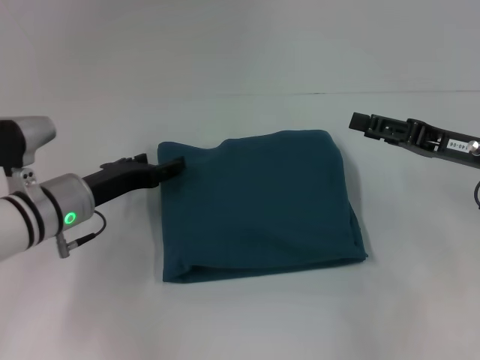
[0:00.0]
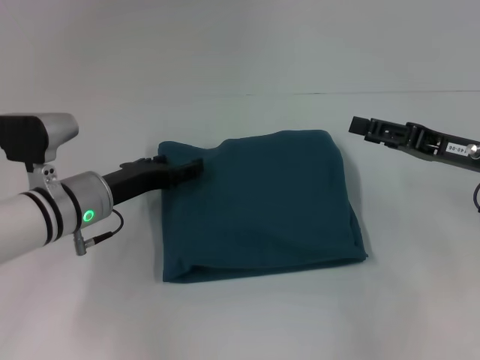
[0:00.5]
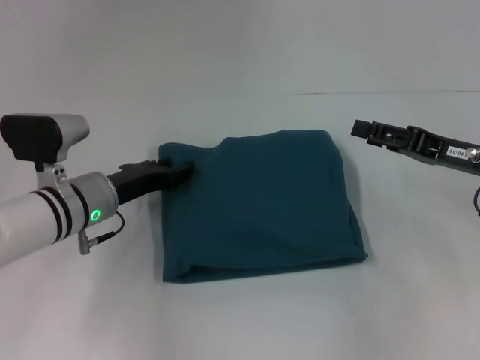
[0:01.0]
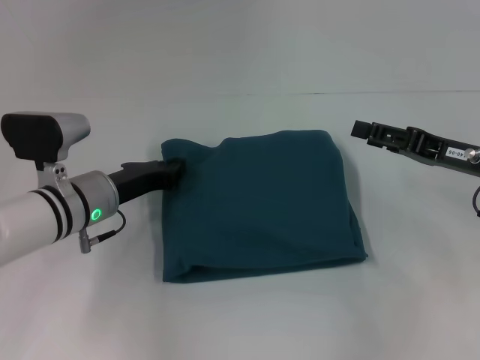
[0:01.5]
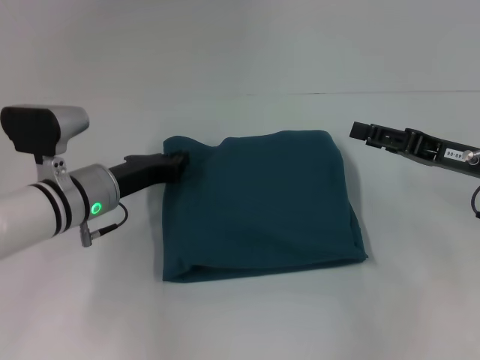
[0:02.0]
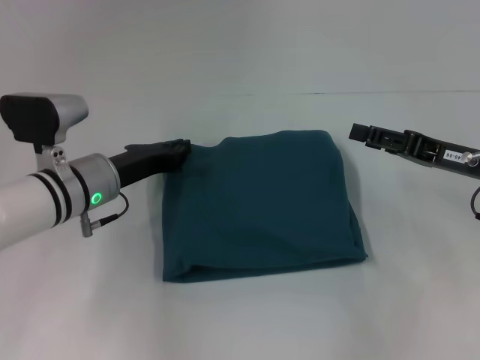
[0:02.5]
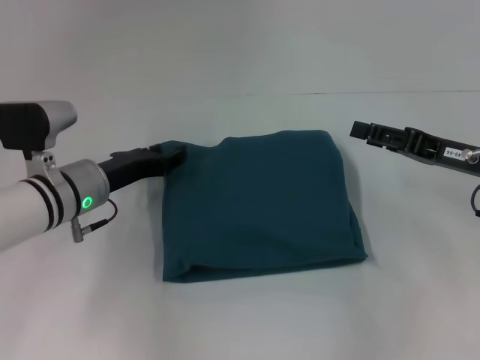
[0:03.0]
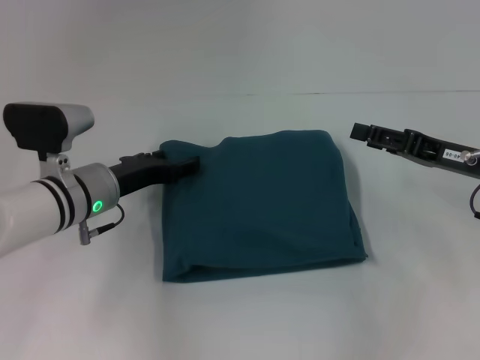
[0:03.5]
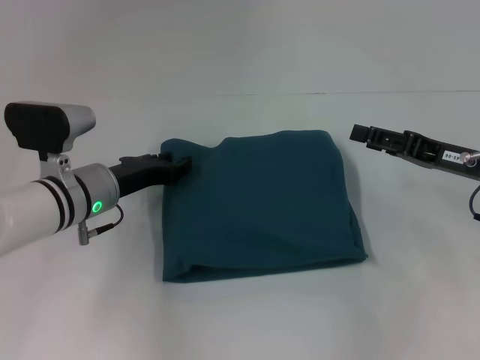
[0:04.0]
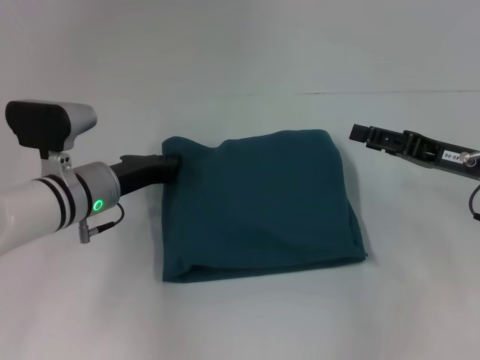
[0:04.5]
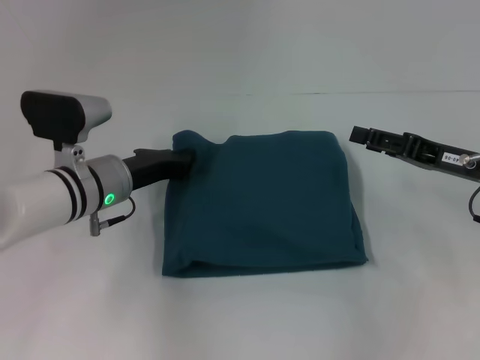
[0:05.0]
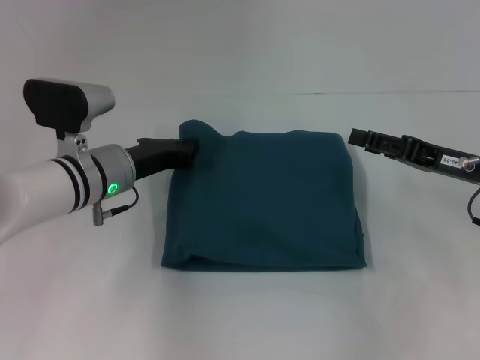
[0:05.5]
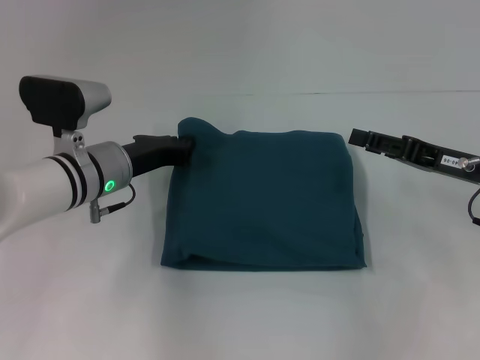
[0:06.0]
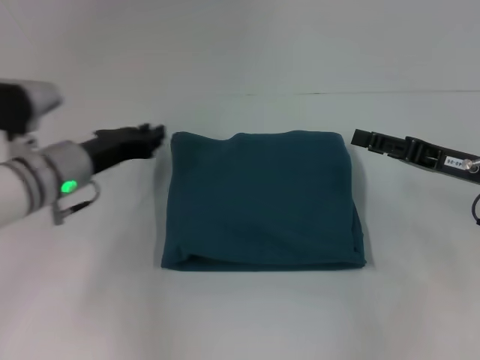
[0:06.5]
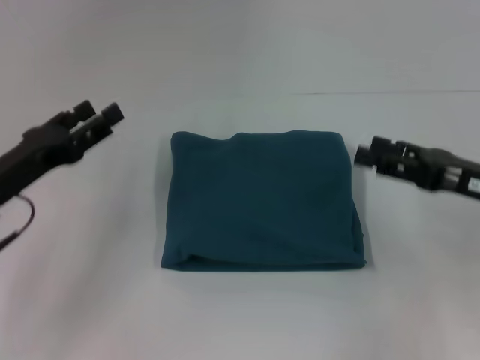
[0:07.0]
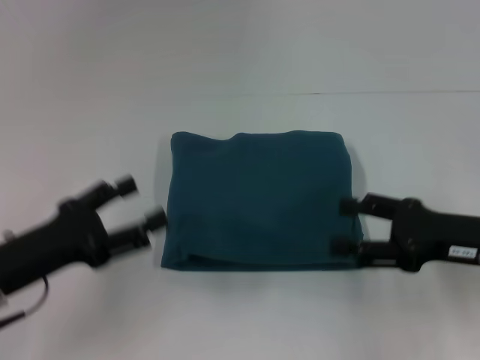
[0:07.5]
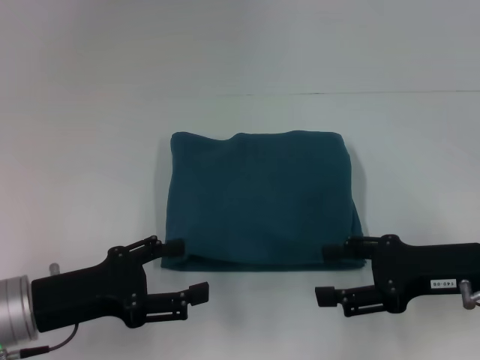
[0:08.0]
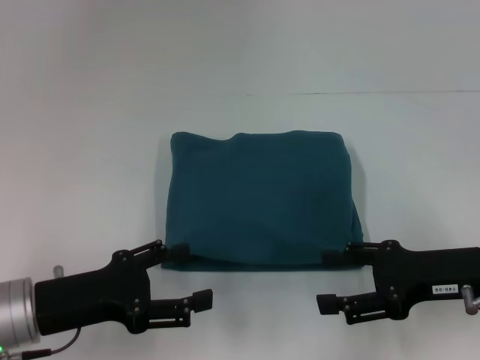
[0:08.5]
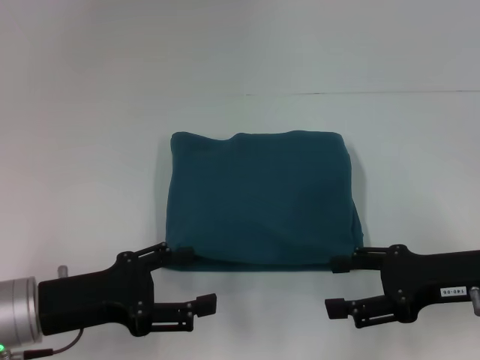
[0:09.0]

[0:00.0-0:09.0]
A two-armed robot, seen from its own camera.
0:00.0 to 0:02.0: The left gripper closes its fingers.
0:02.0 to 0:04.5: The left gripper opens and closes again.
0:04.5 to 0:07.0: The left gripper goes some 10 cm to the left and backward, and opens its fingers.
0:07.0 to 0:09.0: The left gripper shifts roughly 5 cm backward.

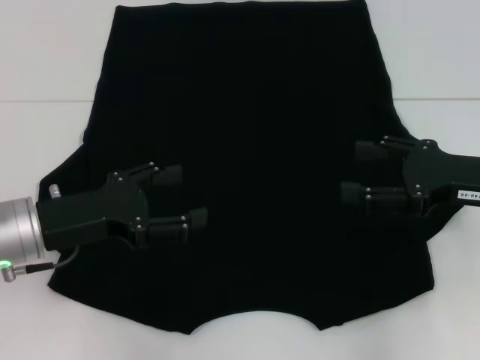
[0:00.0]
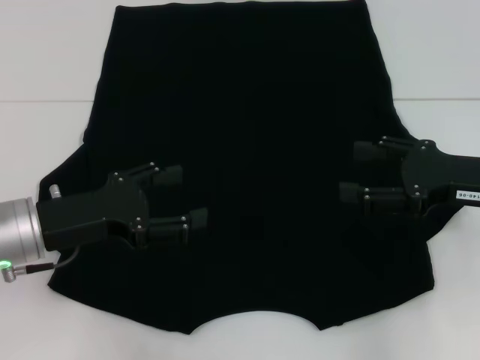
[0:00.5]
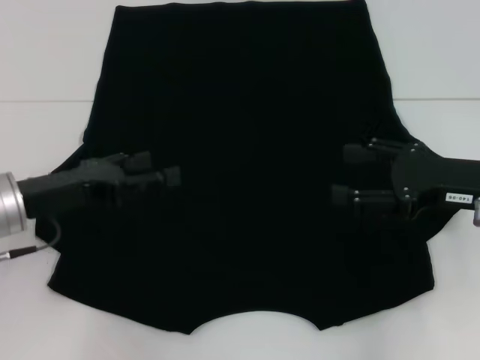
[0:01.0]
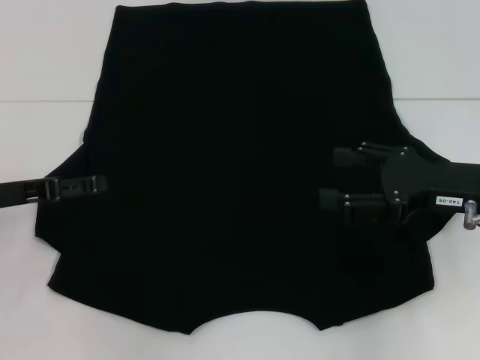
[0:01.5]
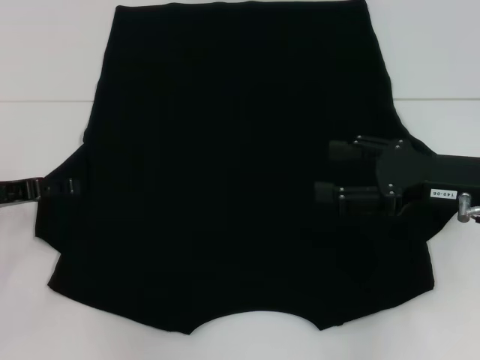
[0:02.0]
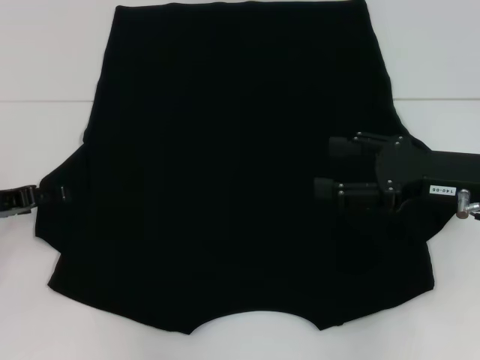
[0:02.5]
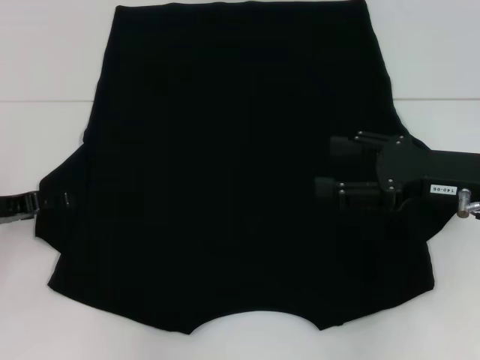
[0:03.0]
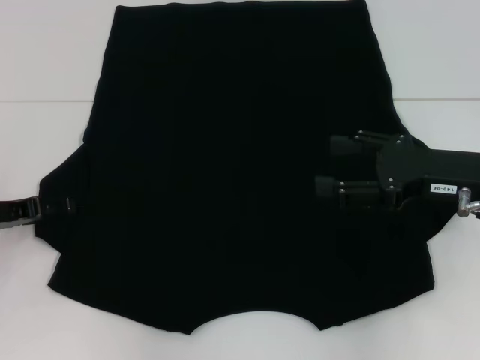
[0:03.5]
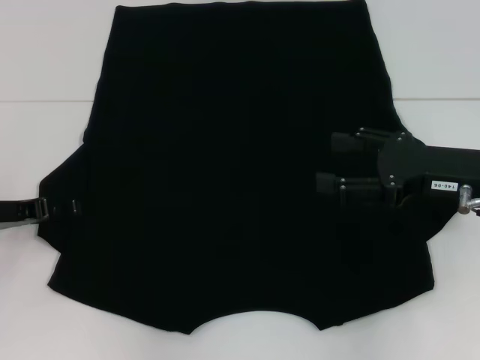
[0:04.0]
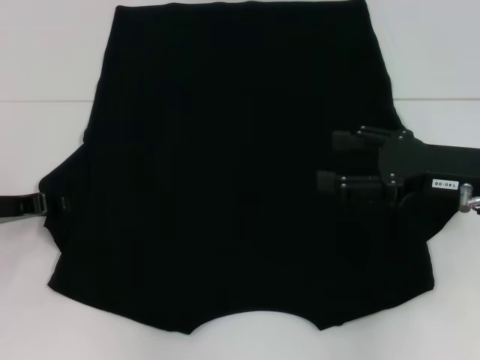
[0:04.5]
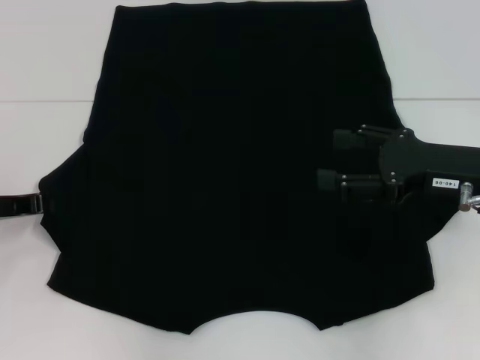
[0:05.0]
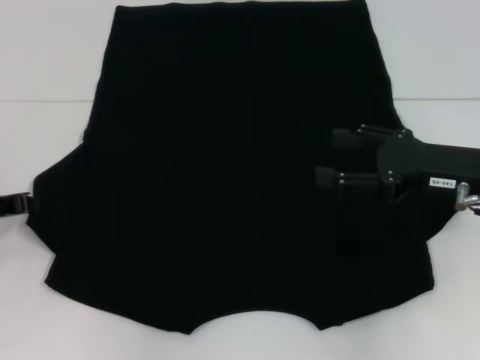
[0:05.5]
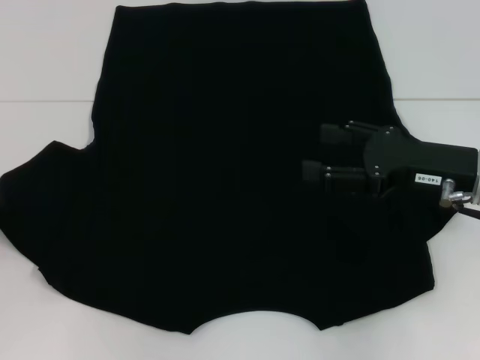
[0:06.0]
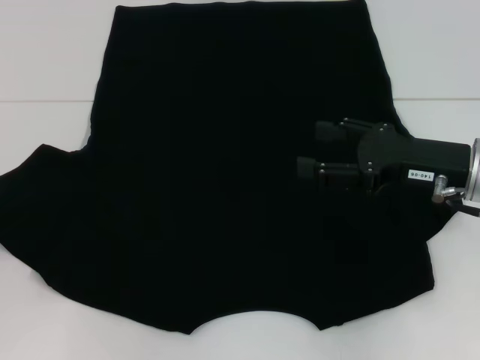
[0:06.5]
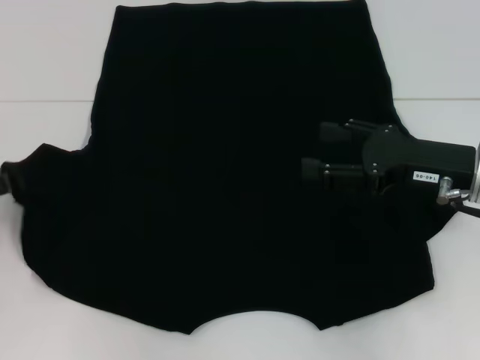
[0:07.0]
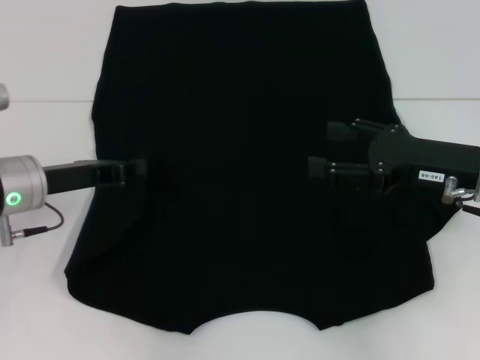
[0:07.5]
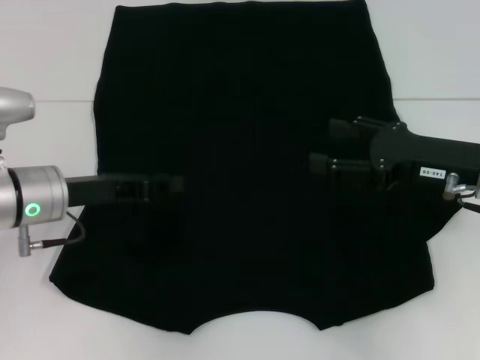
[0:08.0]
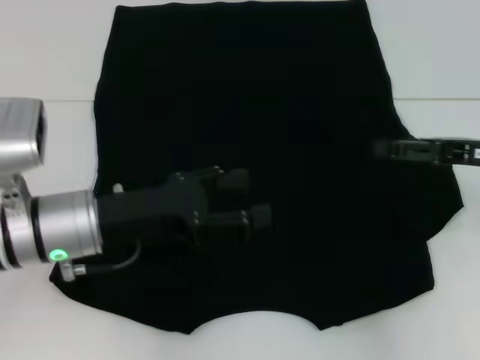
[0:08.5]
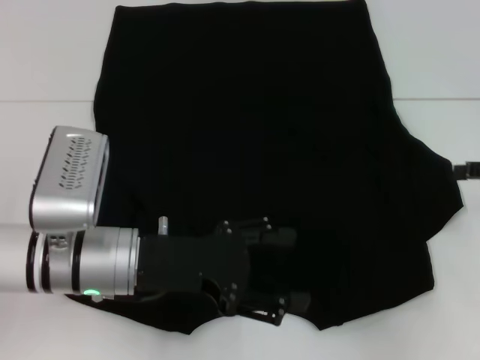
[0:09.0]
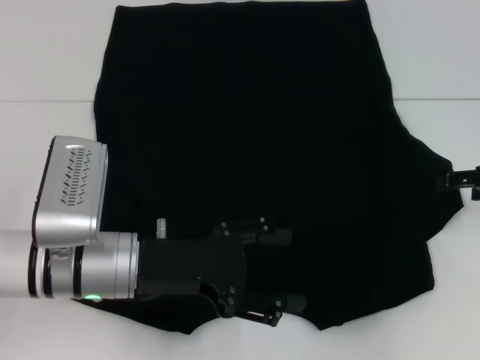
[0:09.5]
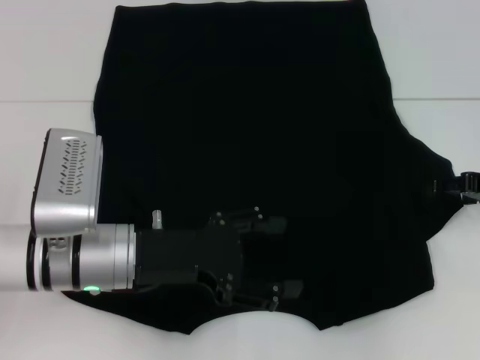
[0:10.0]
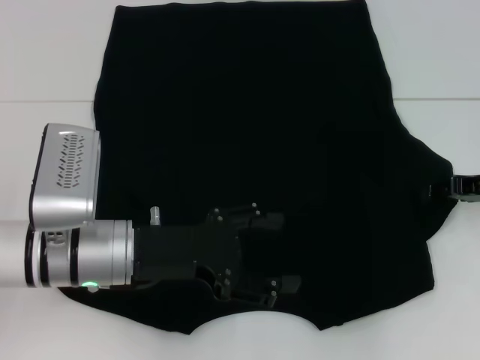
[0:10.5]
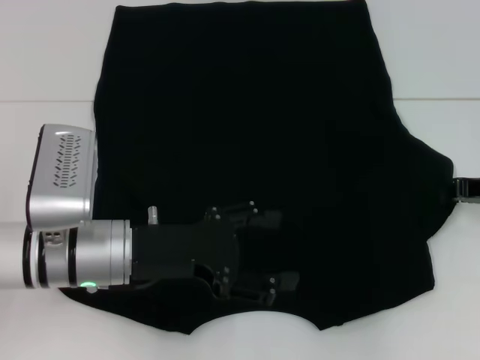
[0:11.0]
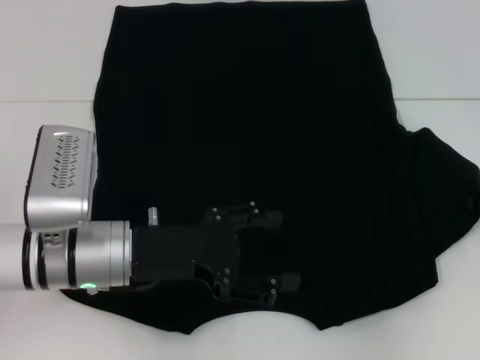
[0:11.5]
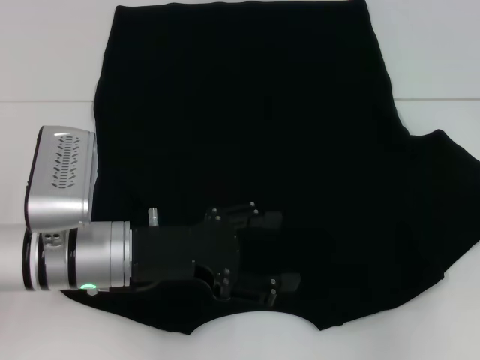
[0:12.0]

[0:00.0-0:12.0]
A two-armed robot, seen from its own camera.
Step, 0:00.0 to 0:08.0: Fold the bottom left sleeve with your left hand.
0:00.0 to 0:02.0: The left gripper heads to the left, covering some 10 cm.
0:02.0 to 0:04.0: The grippers stay close to where they were, moving slightly.
0:04.0 to 0:06.0: The left gripper closes up.
0:06.0 to 0:08.0: The left gripper moves to the right, approximately 15 cm.
0:08.0 to 0:10.0: The left gripper is displaced to the right and backward by roughly 10 cm, and opens its fingers. Meanwhile the right gripper travels to the right by about 10 cm.
0:10.0 to 0:12.0: The right gripper closes its fingers.

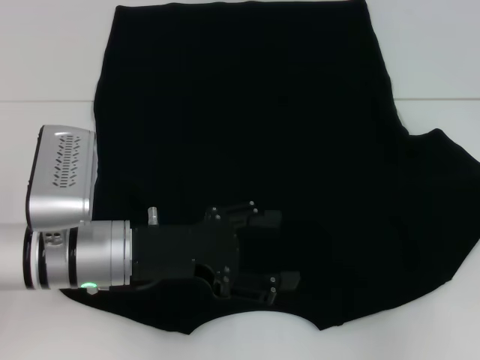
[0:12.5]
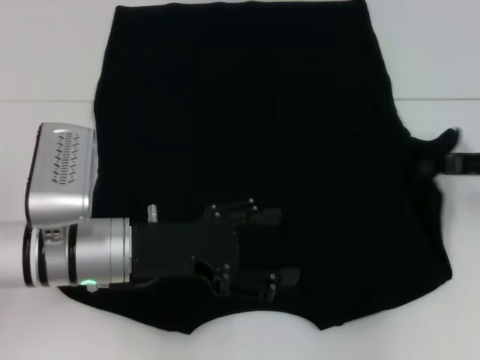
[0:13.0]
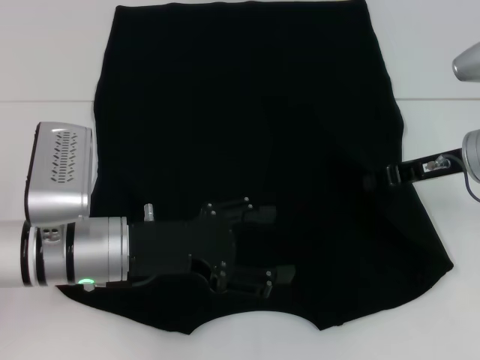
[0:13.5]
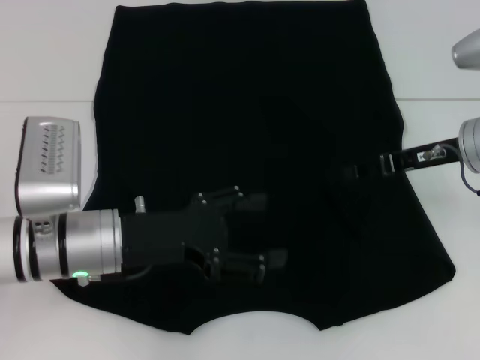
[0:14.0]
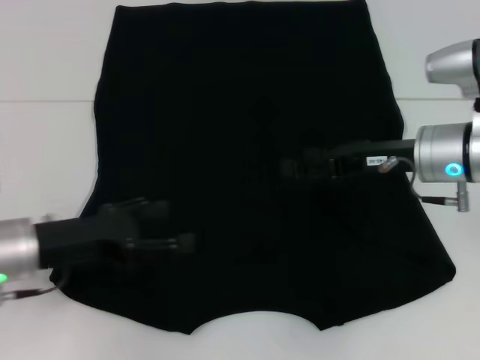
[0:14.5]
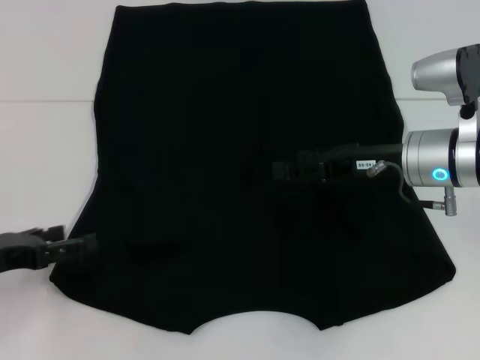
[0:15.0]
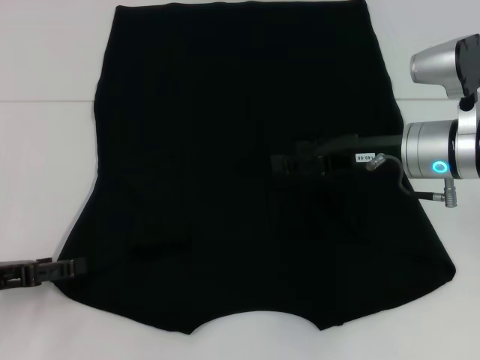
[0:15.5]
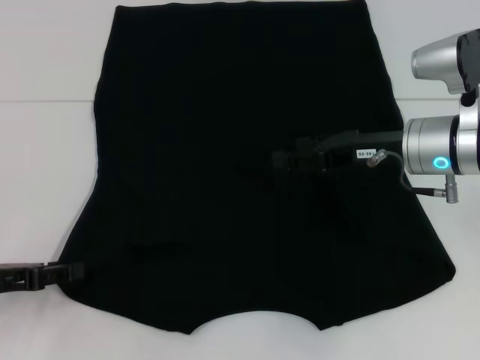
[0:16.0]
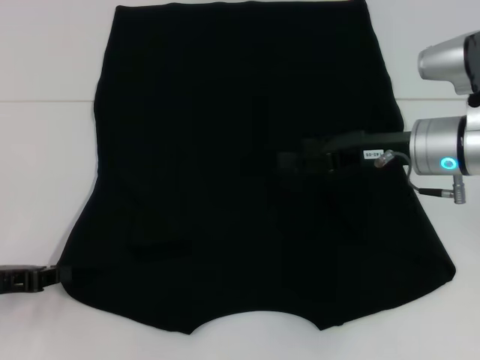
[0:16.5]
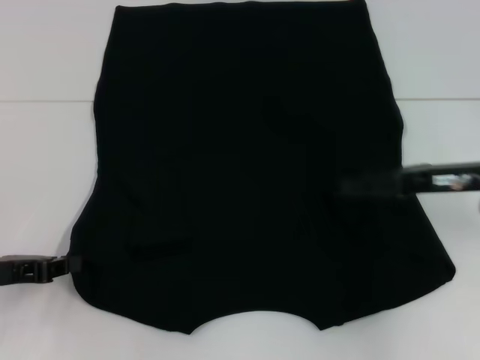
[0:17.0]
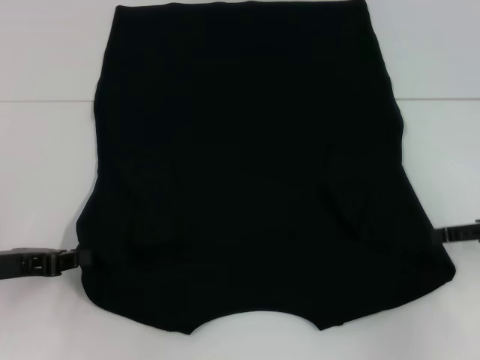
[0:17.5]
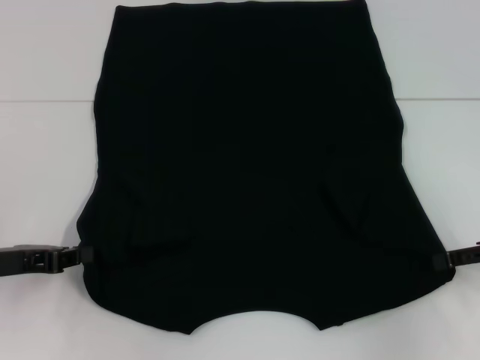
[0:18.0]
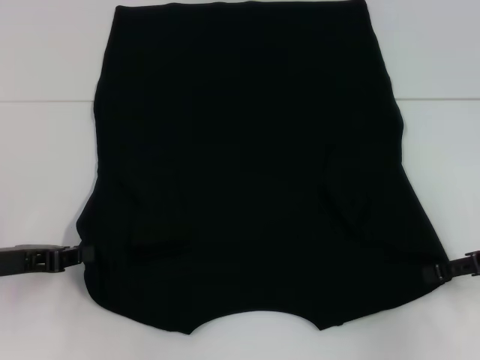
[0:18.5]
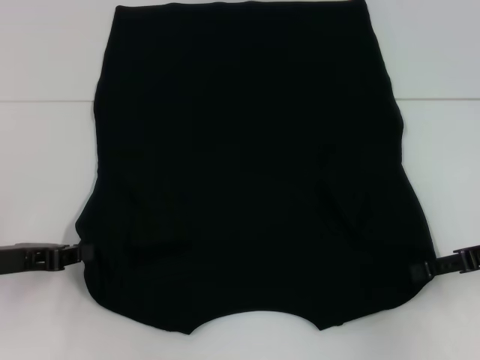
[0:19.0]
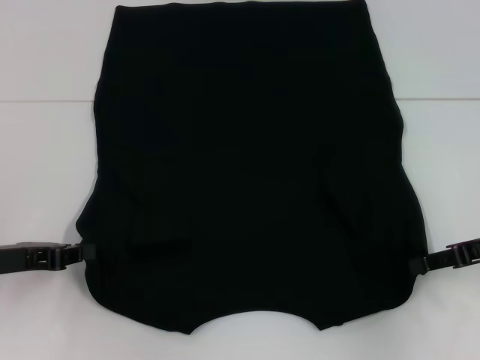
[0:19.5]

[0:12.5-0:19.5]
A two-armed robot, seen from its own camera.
Step, 0:14.0 to 0:16.5: Grab the bottom left corner with your left hand.
Step, 0:17.0 to 0:19.0: Grab the bottom right corner with your right hand.
0:12.5 to 0:14.5: The left gripper is displaced to the left by about 10 cm. Meanwhile the right gripper moves to the left, approximately 15 cm, and opens up.
0:14.5 to 0:16.0: The left gripper travels to the left by approximately 10 cm.
0:16.0 to 0:17.5: The left gripper closes its fingers. Meanwhile the right gripper heads to the right, covering roughly 15 cm.
0:17.5 to 0:19.5: There are only small adjustments of the grippers.
